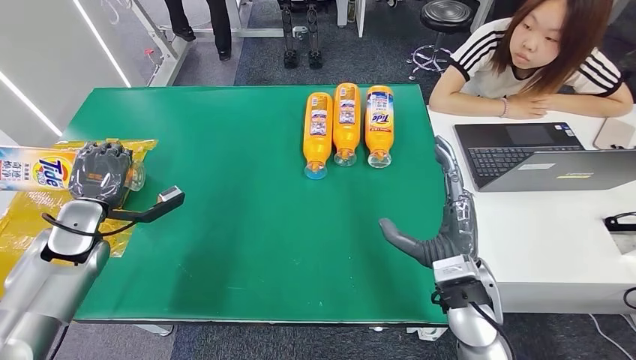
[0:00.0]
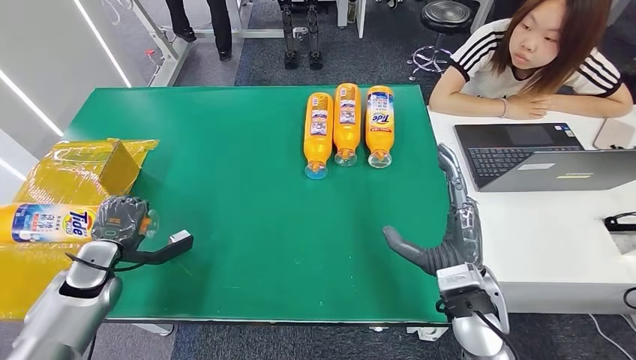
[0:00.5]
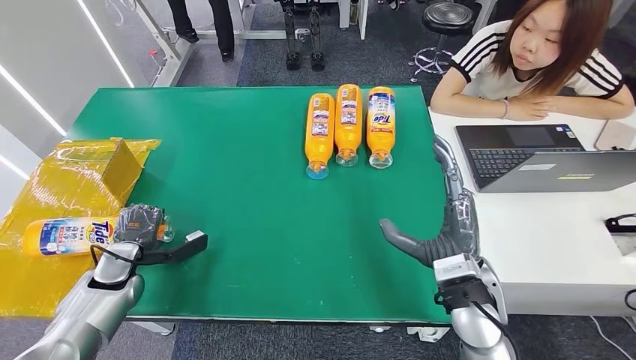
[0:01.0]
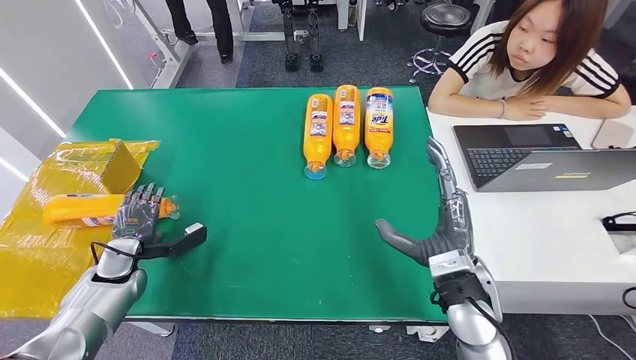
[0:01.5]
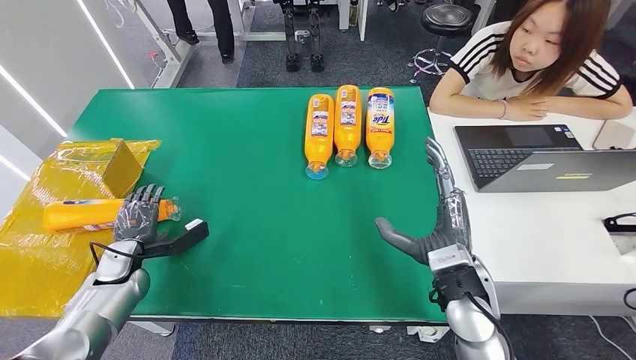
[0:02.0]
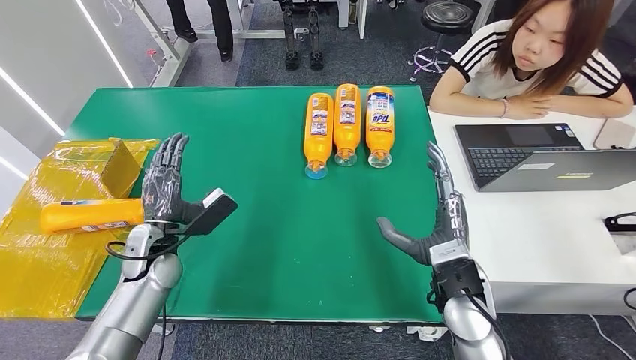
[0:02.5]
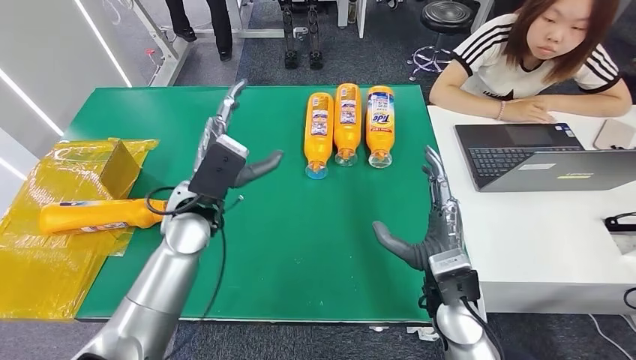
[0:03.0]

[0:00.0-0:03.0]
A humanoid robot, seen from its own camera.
Step, 0:00.0 to 0:03.0: Turn the bottle to the front side.
0:00.0 to 0:01.5: The left hand goes approximately 10 cm downward.
